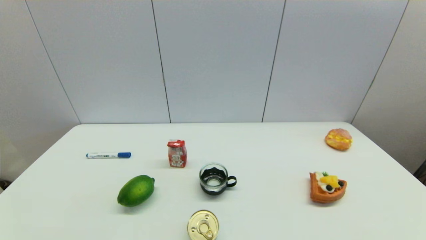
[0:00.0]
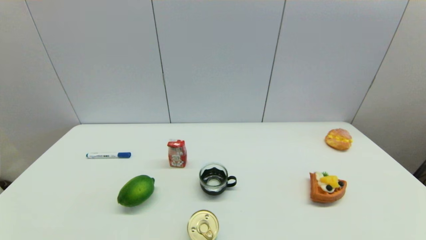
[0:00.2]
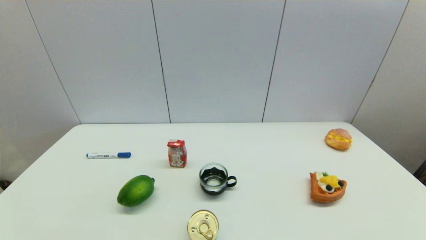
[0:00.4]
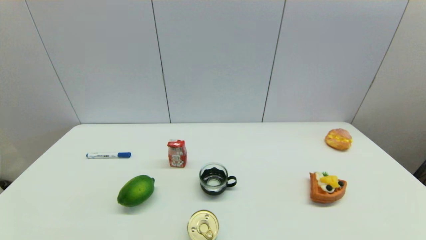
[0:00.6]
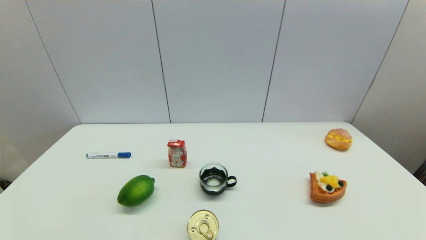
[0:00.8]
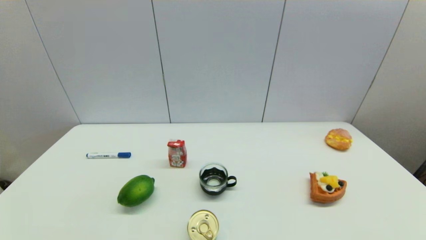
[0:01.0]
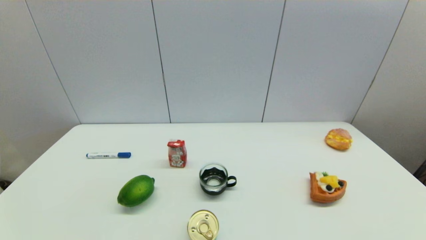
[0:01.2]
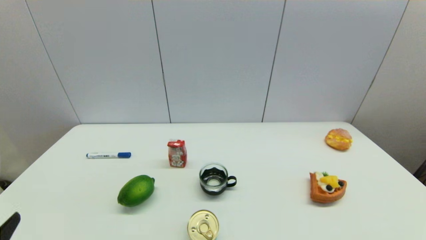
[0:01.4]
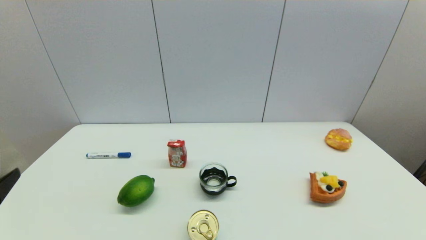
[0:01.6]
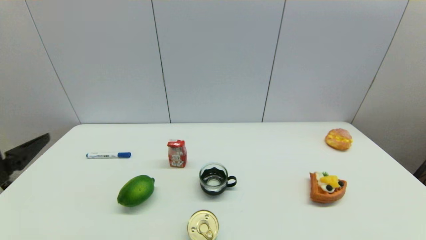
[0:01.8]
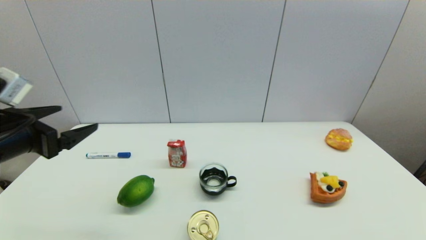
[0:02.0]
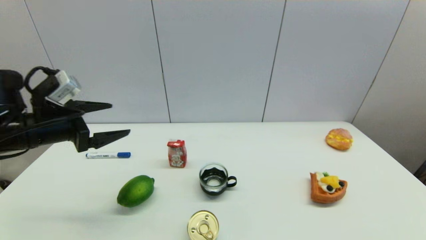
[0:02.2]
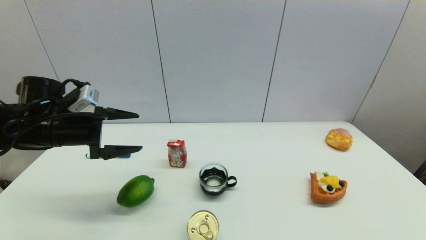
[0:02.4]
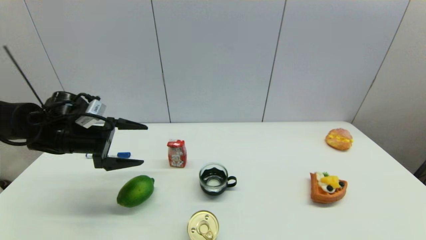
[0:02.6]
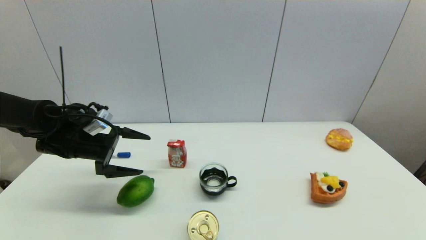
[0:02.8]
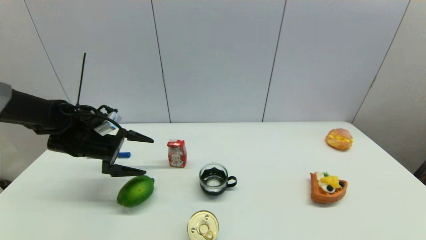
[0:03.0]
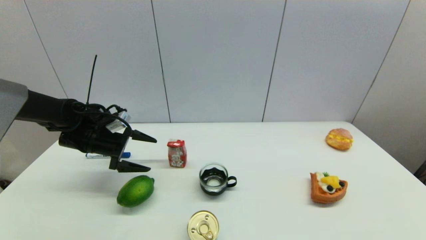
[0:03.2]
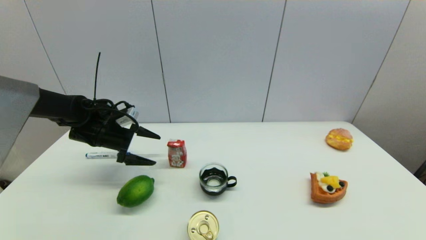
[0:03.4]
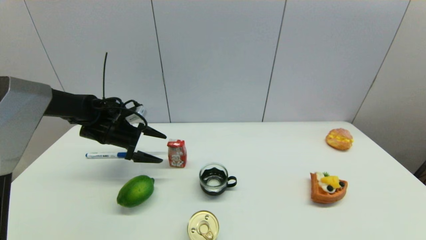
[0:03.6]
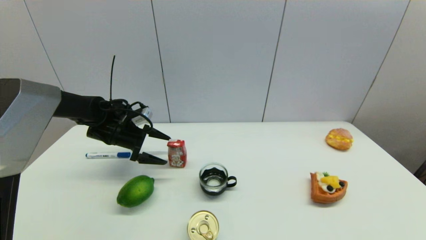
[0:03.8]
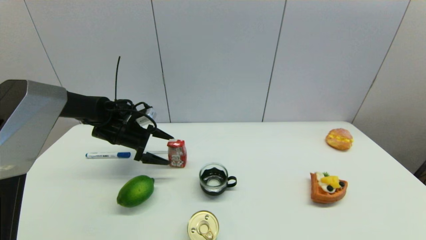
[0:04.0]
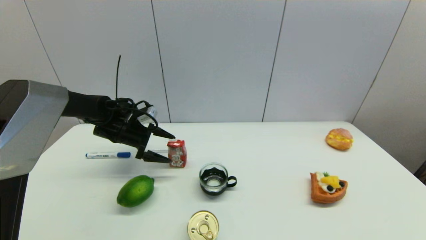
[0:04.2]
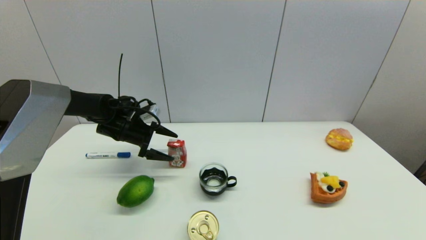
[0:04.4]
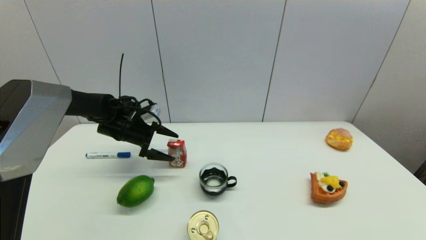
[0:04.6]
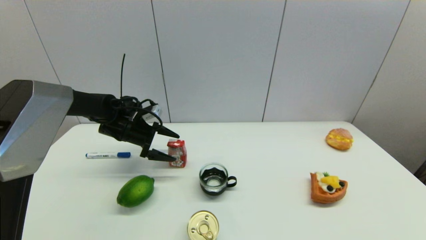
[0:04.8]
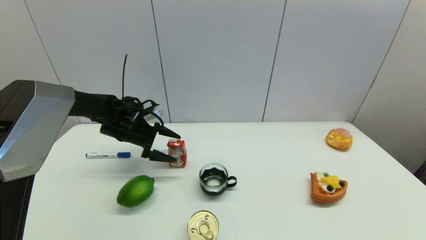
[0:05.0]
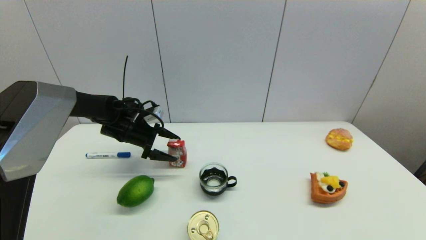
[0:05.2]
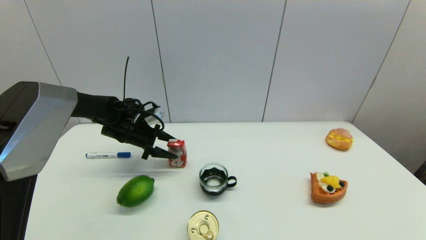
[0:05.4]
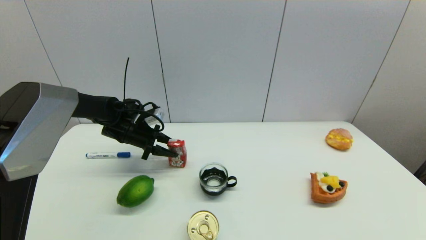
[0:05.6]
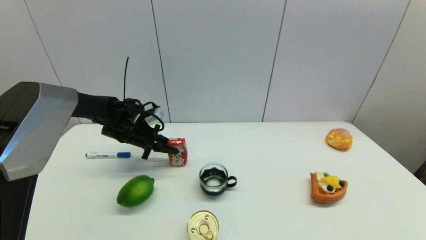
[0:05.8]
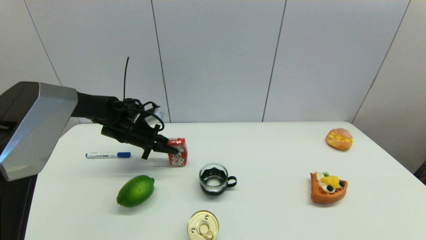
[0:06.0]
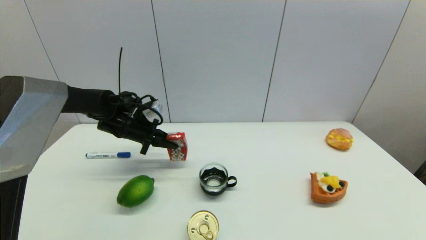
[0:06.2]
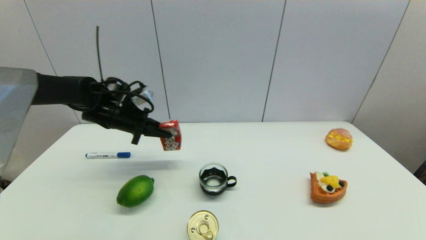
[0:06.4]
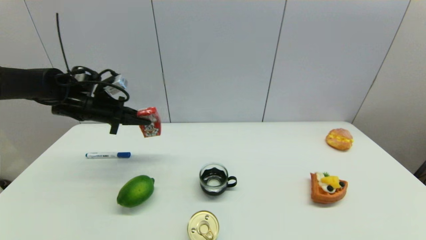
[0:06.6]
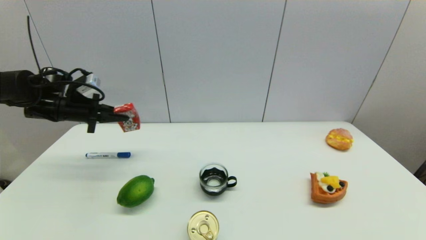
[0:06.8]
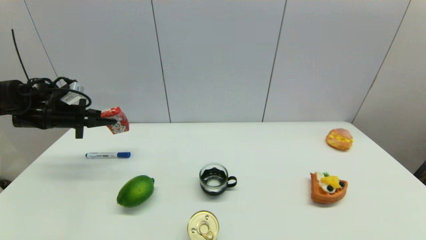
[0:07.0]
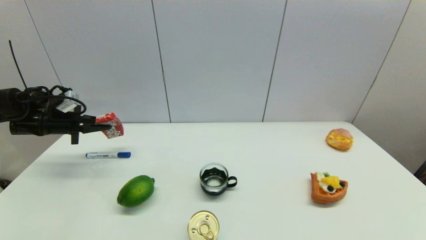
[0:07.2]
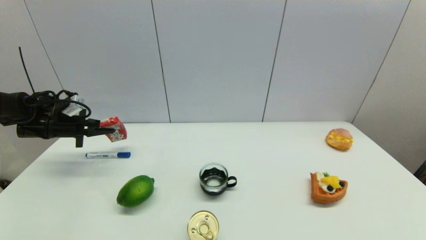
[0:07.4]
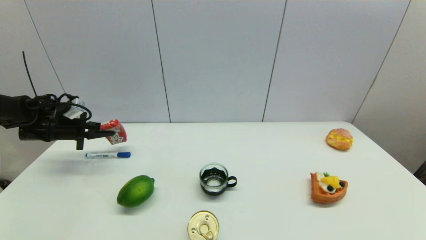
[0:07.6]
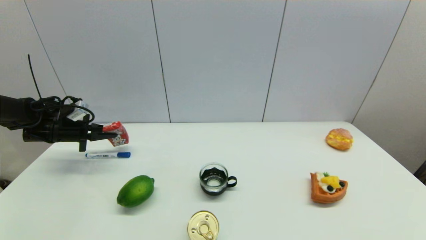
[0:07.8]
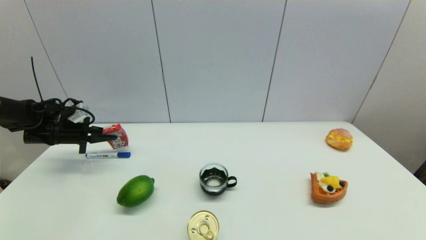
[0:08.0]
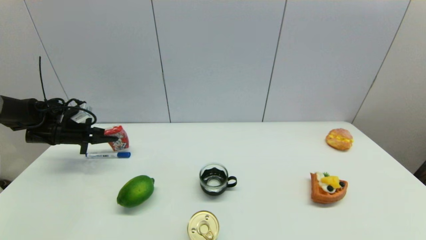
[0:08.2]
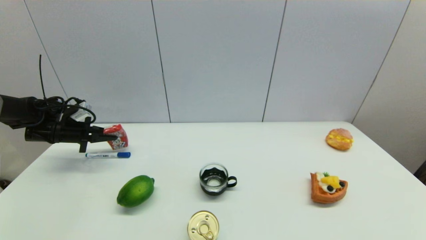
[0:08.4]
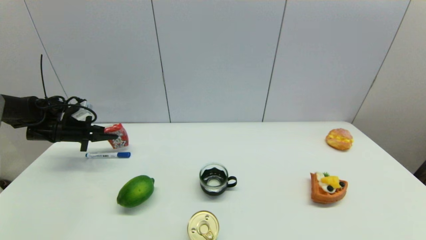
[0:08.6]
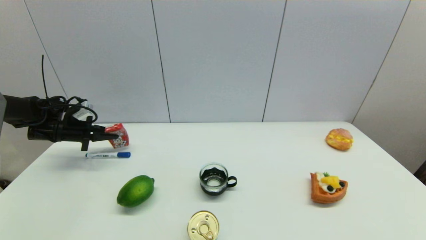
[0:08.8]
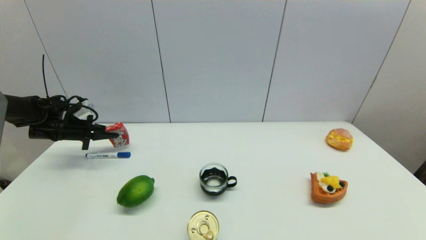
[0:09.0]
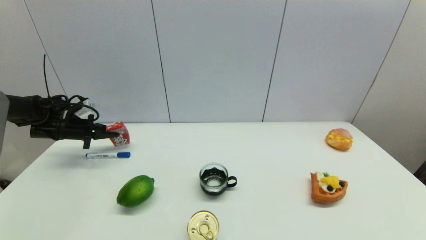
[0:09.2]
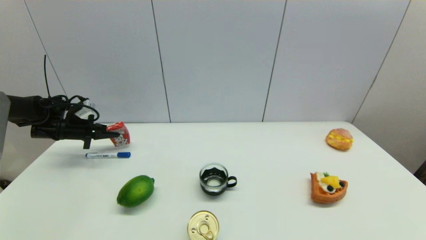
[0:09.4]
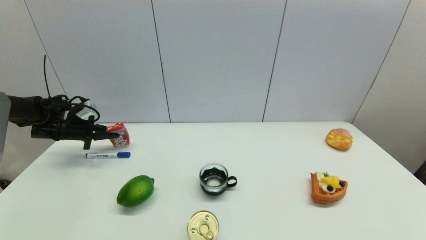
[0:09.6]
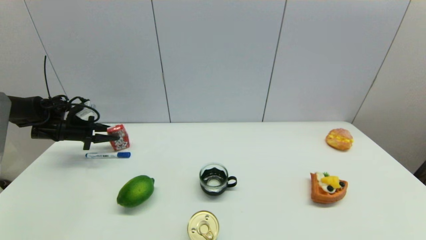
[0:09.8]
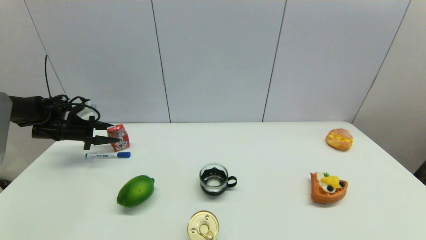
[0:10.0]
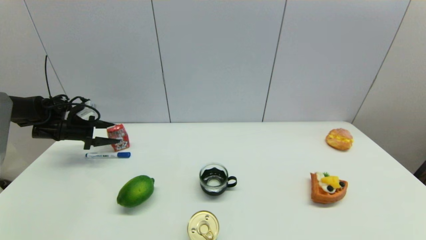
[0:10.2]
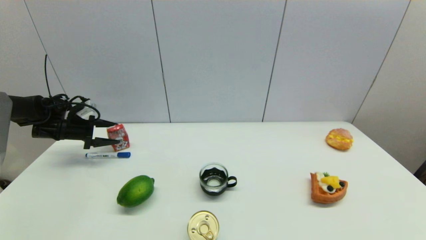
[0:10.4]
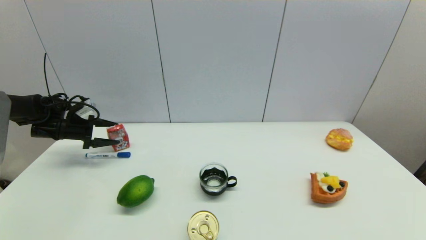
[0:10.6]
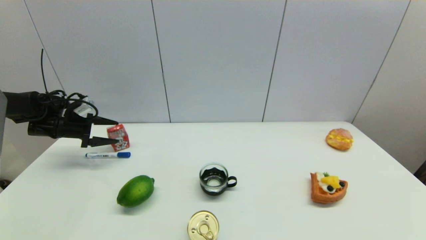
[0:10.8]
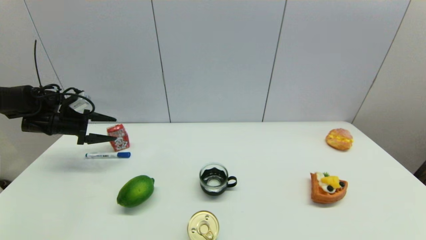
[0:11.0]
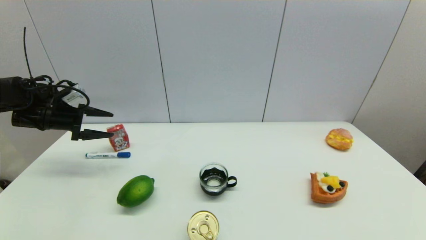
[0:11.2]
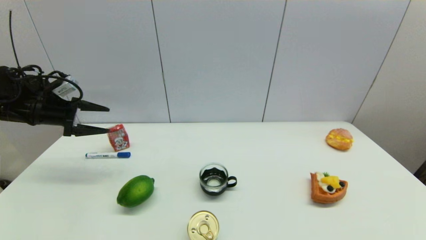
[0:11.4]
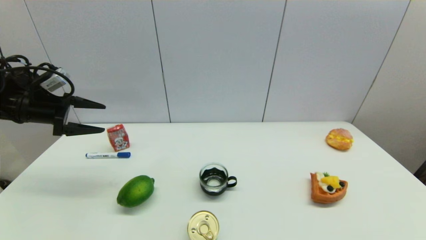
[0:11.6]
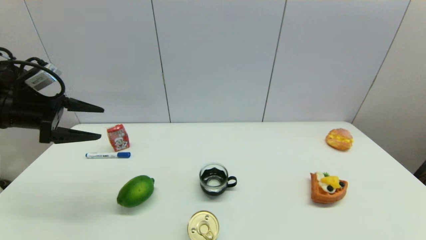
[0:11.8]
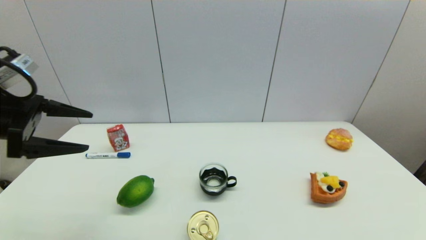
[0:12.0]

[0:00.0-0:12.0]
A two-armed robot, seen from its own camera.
Step, 0:01.4 to 0:05.8: Grasp the wangzai milk with left gripper.
Step, 0:06.0 to 0:09.8: Place the wangzai milk on the table with left gripper.
0:01.6 to 0:03.0: The left gripper heads forward, covering about 30 cm.
0:03.0 to 0:04.4: The left gripper moves forward and to the right, about 10 cm.
0:04.4 to 0:06.0: The left gripper closes.
0:06.0 to 0:07.6: The left gripper moves to the left, roughly 20 cm.
0:07.6 to 0:09.0: The grippers make only small movements.
0:09.0 to 0:10.4: The left gripper opens.
0:10.4 to 0:12.0: The left gripper heads backward, upward and to the right, covering about 25 cm.

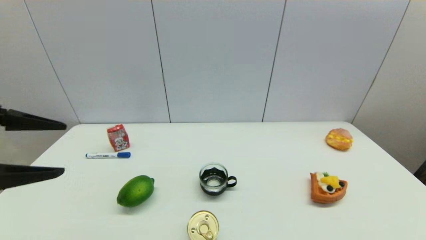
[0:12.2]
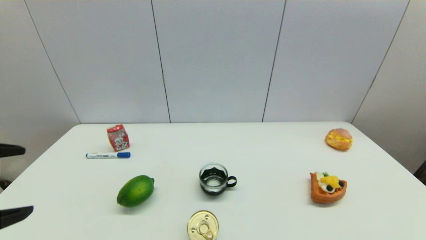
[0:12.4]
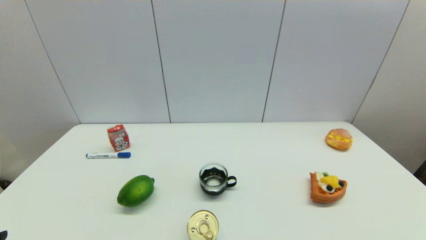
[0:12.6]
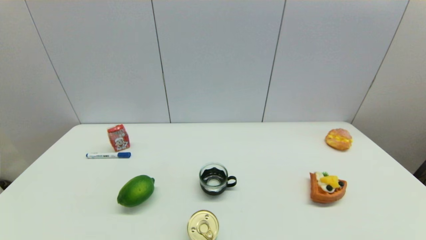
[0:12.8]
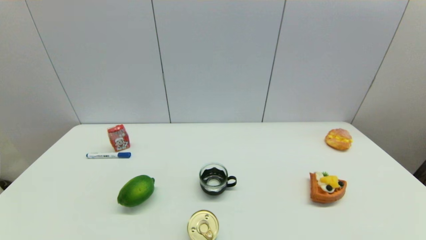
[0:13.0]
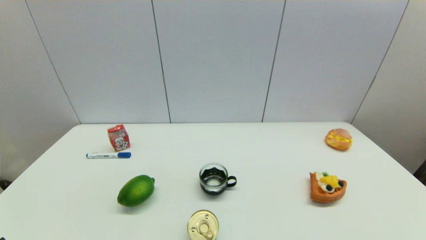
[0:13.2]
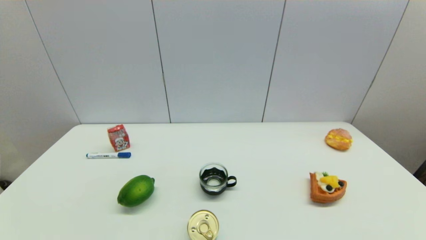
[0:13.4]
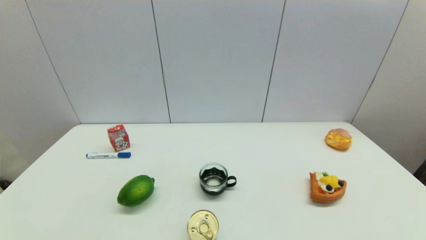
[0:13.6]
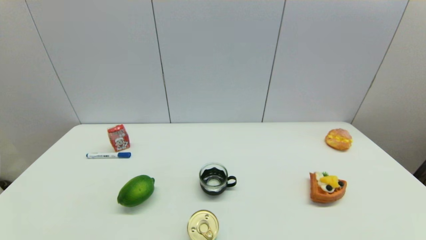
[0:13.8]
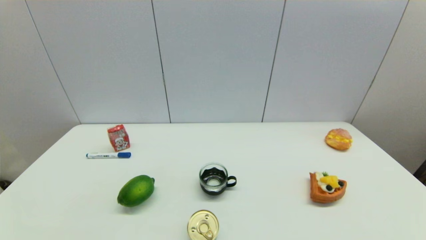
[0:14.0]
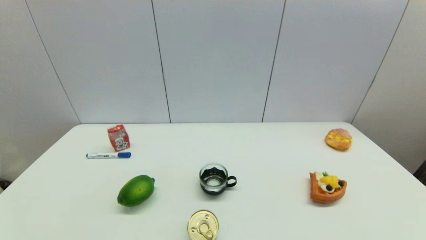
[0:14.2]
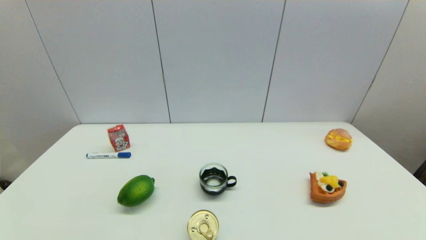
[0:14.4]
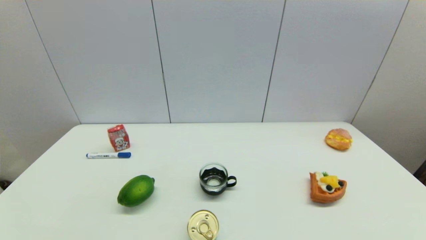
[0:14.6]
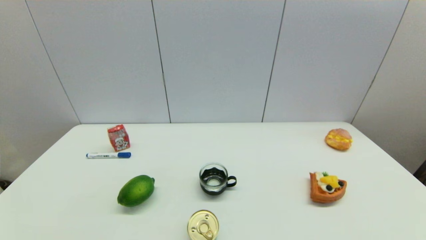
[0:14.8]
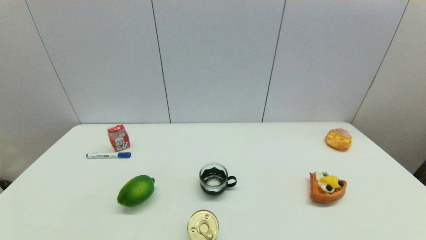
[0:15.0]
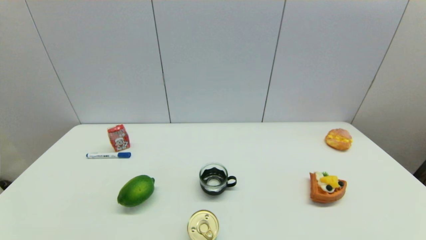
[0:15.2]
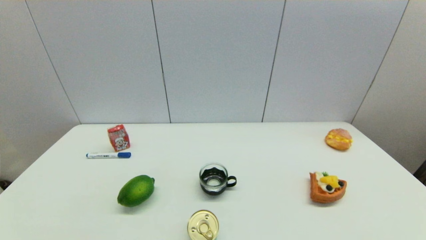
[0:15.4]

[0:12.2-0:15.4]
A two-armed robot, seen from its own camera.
0:12.2 to 0:13.8: The left gripper is displaced downward and backward by some 25 cm.
0:13.8 to 0:15.4: Both grippers stay put.

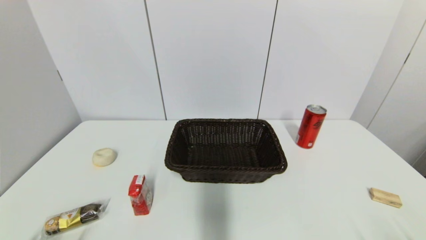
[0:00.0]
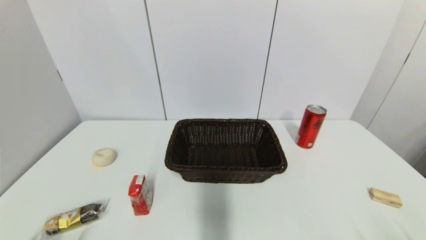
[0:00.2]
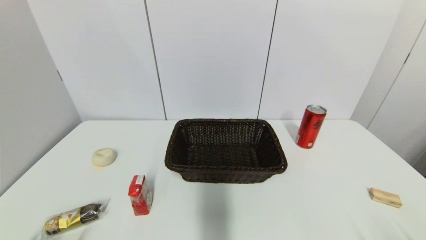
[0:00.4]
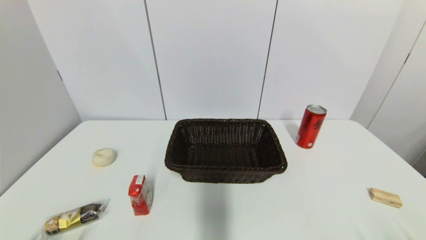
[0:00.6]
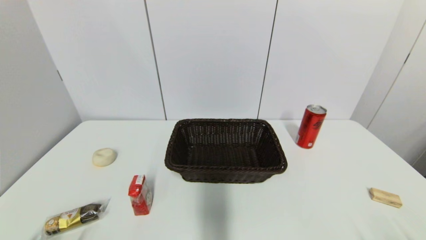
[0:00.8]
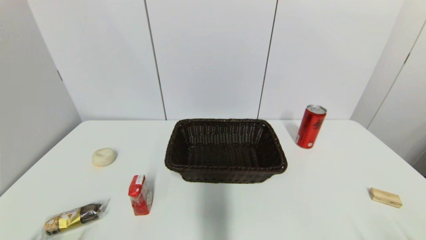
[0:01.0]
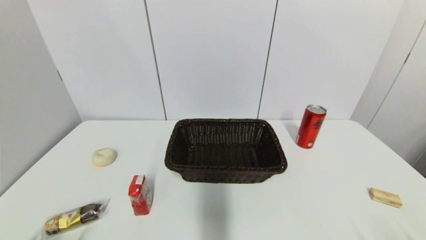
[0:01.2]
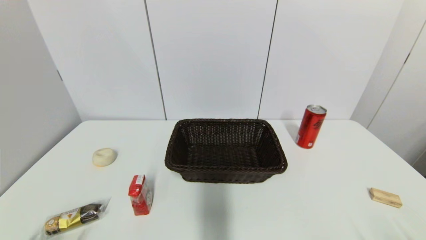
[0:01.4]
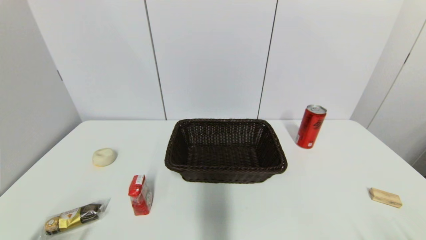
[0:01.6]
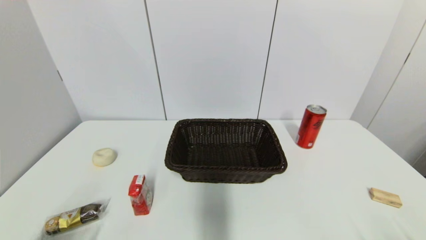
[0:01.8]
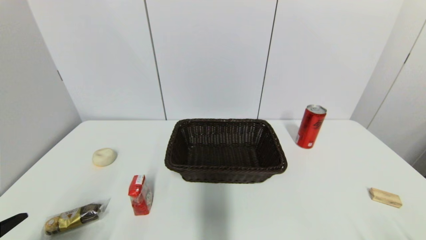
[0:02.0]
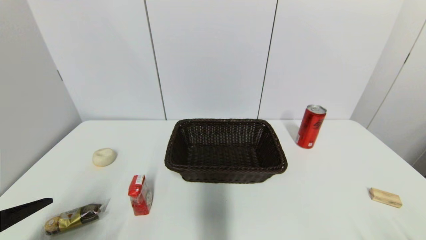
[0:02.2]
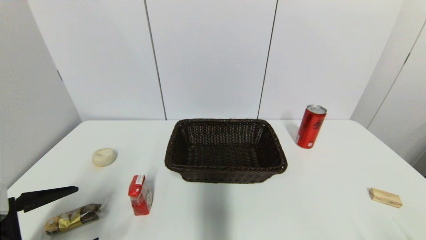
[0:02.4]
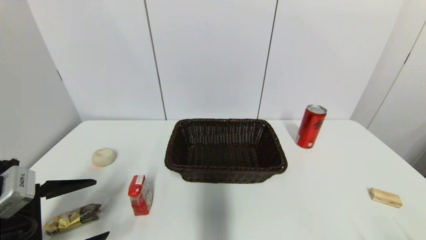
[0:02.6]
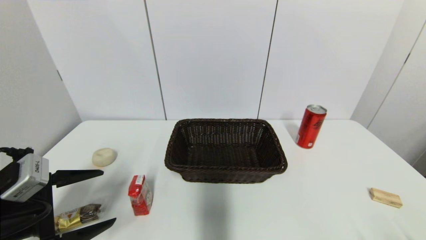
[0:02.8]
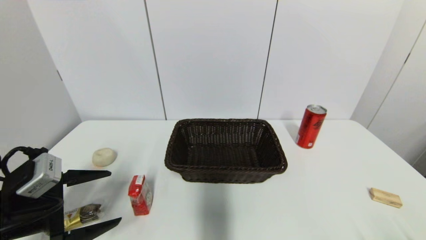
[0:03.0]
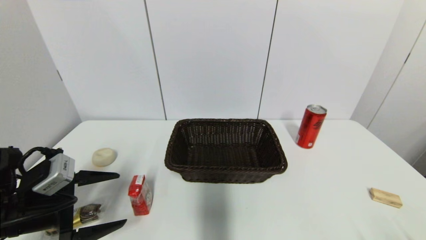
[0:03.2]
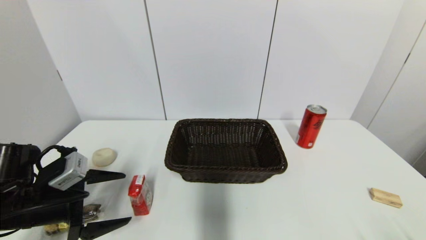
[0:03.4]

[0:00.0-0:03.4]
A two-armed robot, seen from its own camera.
0:01.6 to 0:03.4: The left gripper travels forward by some 20 cm.
